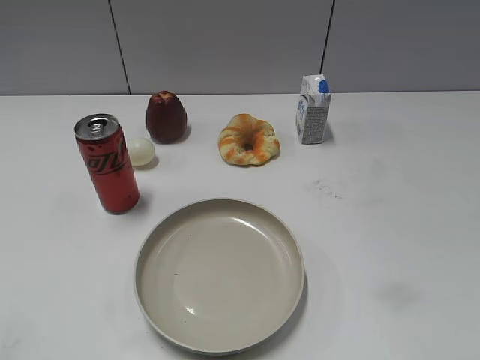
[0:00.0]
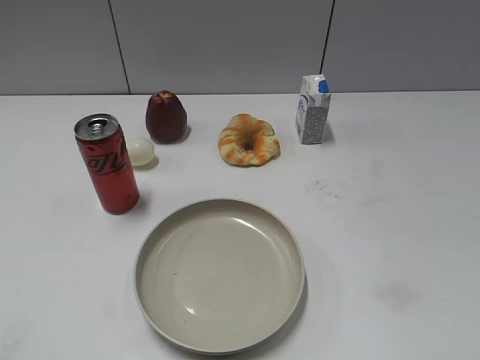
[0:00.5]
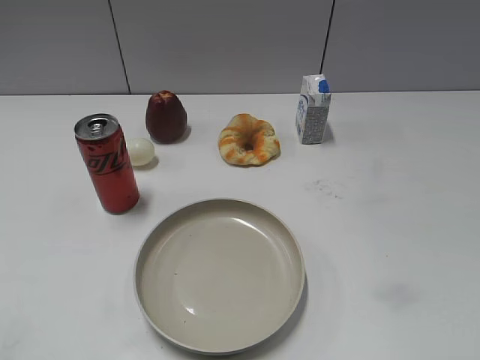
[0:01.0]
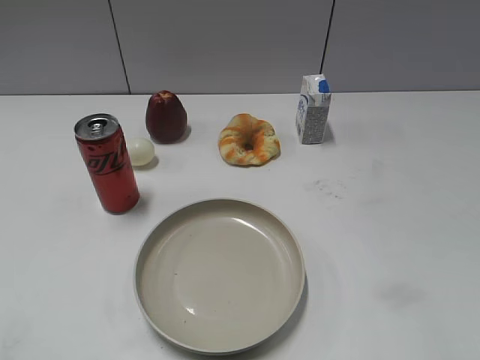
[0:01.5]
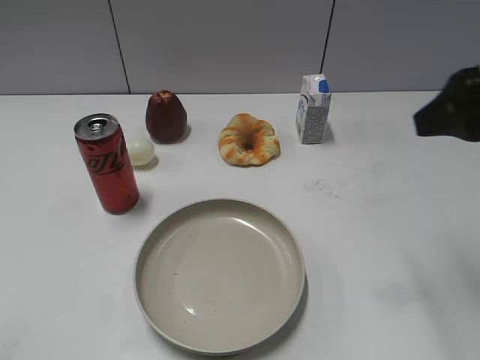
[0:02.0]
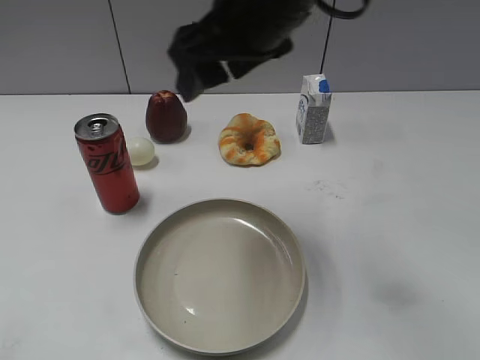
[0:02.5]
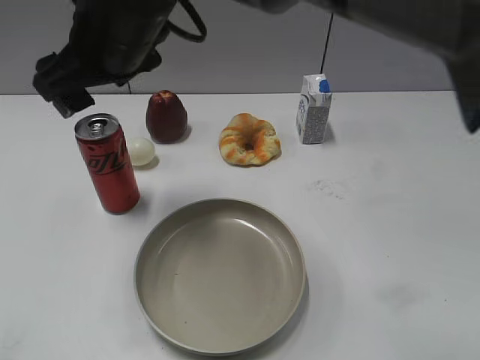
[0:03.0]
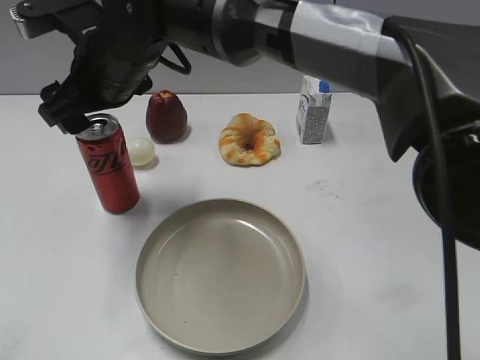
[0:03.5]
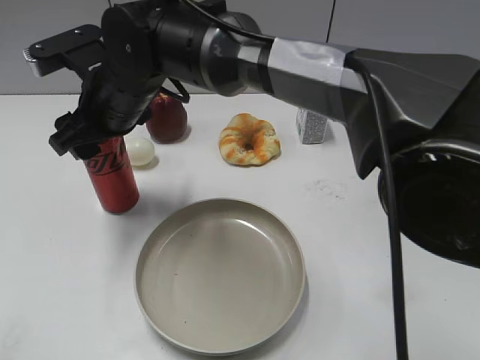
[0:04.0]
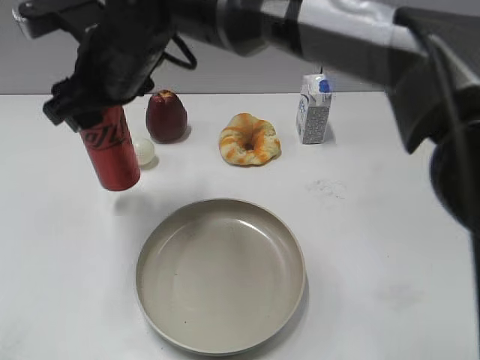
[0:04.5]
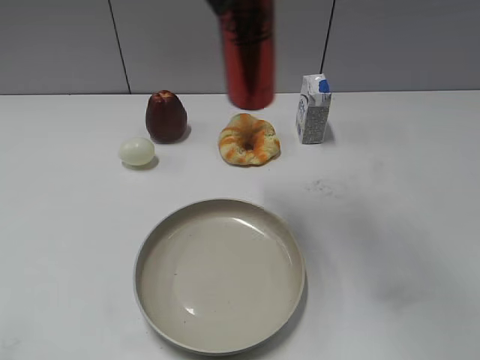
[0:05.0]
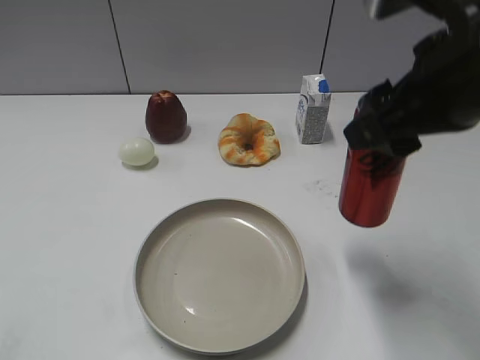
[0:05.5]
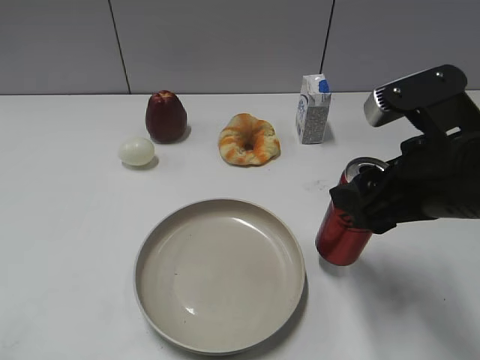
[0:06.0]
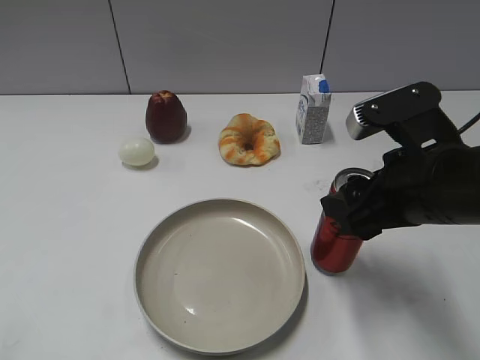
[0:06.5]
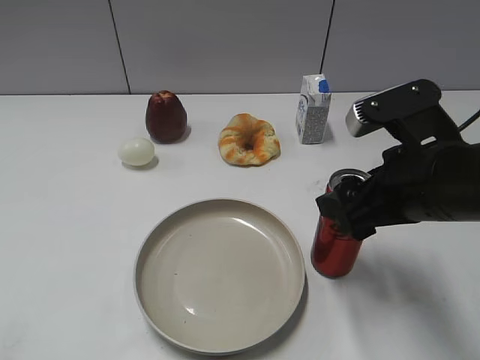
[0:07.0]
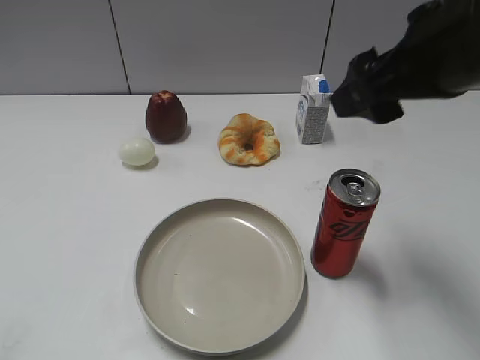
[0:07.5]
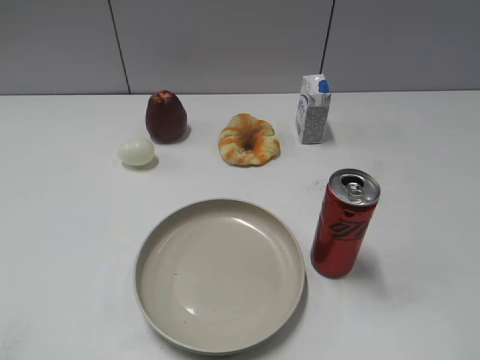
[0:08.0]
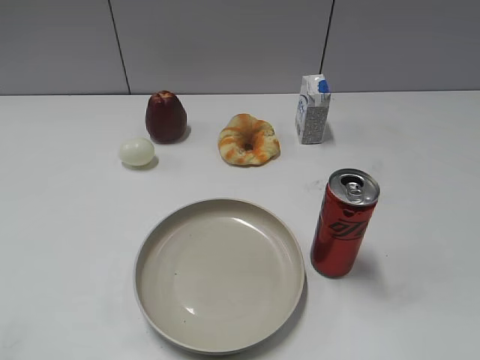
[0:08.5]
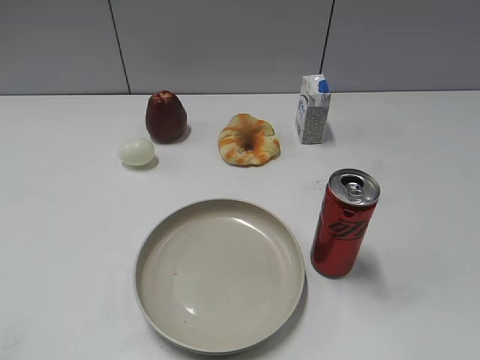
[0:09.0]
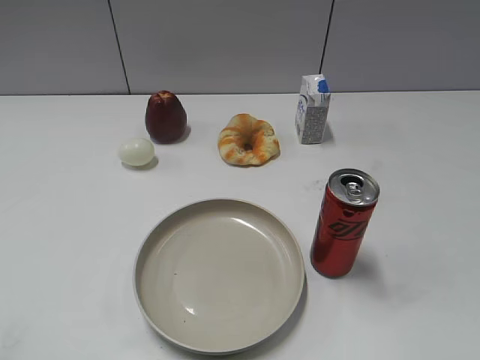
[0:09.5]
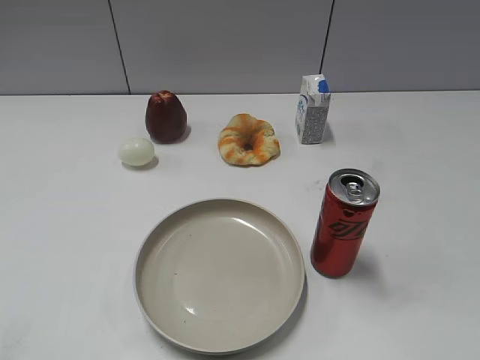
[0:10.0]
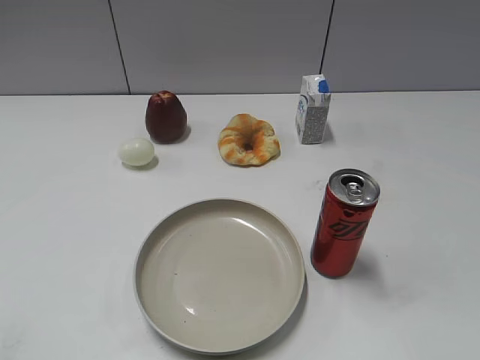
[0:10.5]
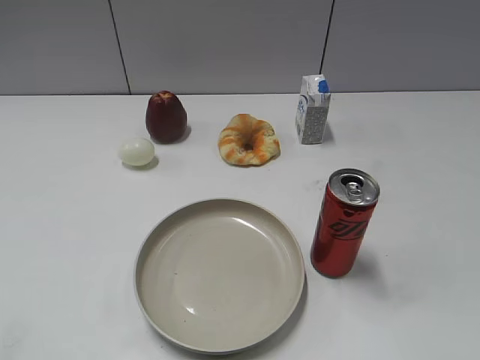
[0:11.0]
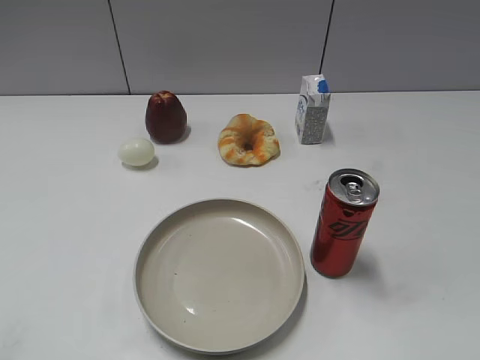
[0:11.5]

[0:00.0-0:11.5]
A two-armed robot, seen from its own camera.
Step, 0:01.0 to 0:04.0: Grasp the cola with right gripper.
Step, 0:04.5 to 0:07.0: Place the cola on the table with right gripper.
0:02.0 to 0:04.0: The right gripper heads to the left, covering roughly 35 cm, and closes up.
0:04.0 to 0:06.0: The right gripper is displaced to the right and backward by approximately 35 cm.
0:06.0 to 0:07.5: The right gripper shifts roughly 10 cm upward, and opens.
0:07.5 to 0:09.5: The right gripper moves backward and to the right, about 25 cm.

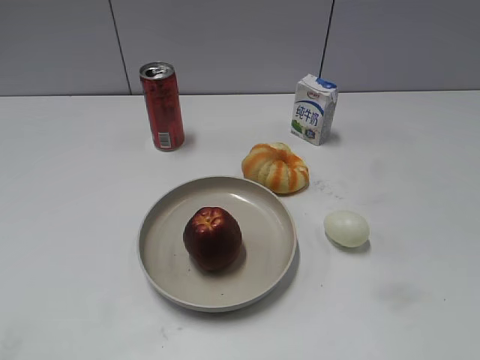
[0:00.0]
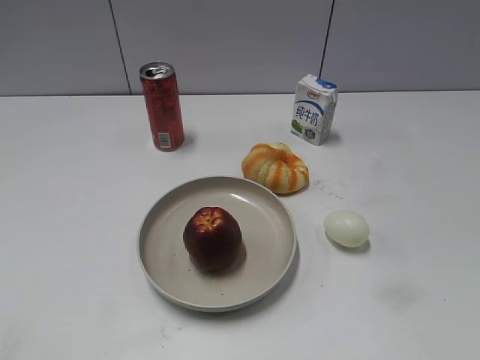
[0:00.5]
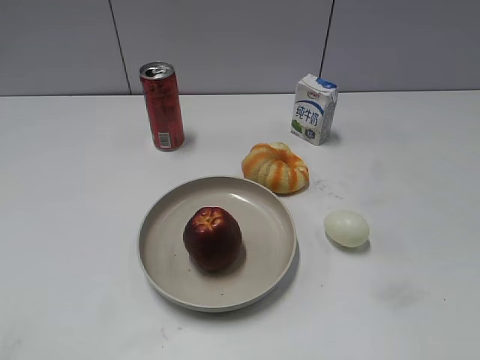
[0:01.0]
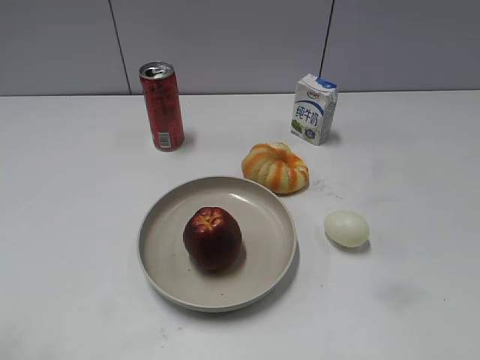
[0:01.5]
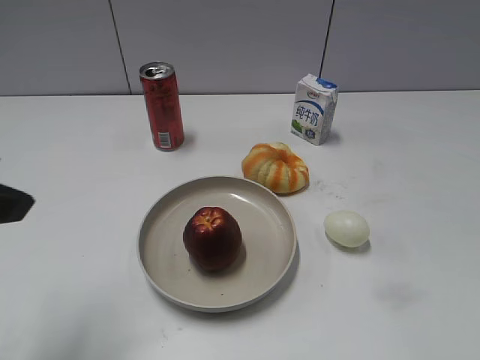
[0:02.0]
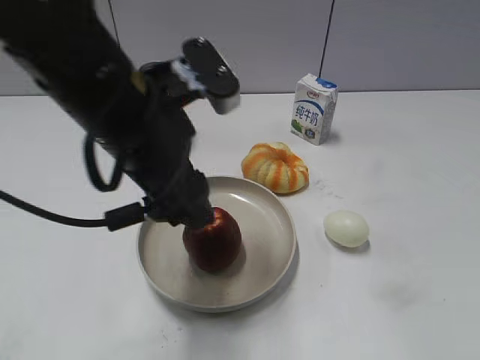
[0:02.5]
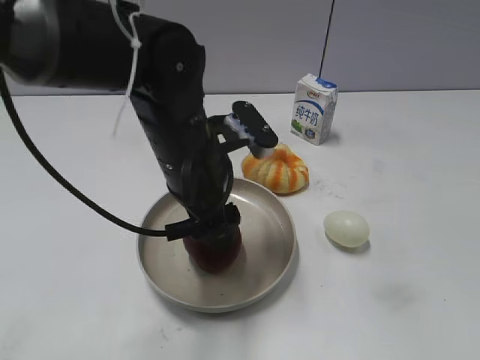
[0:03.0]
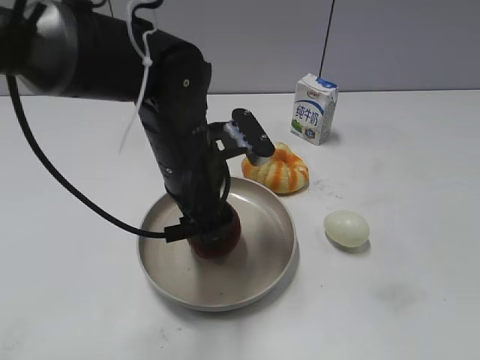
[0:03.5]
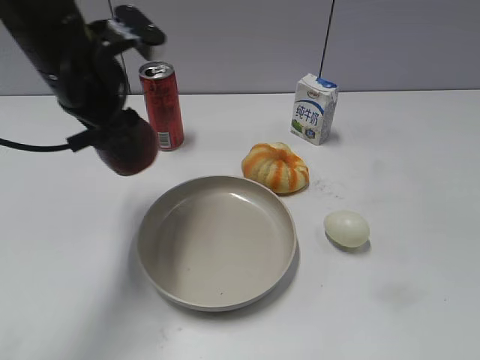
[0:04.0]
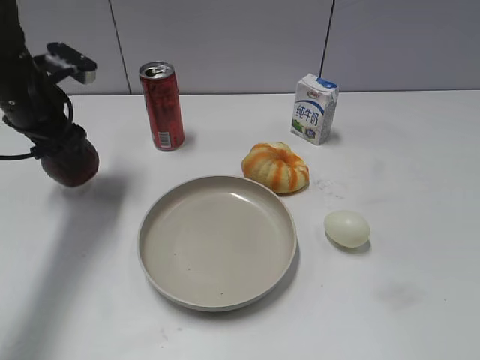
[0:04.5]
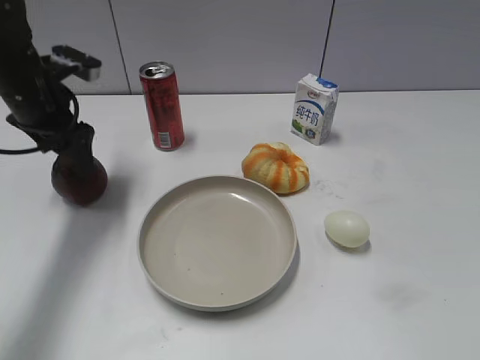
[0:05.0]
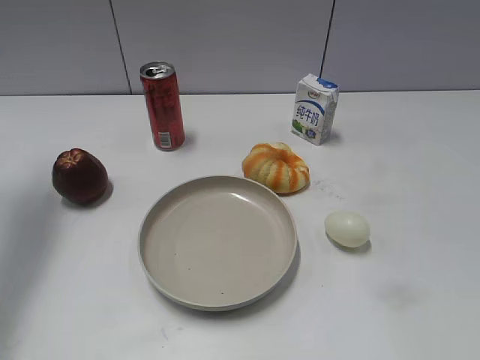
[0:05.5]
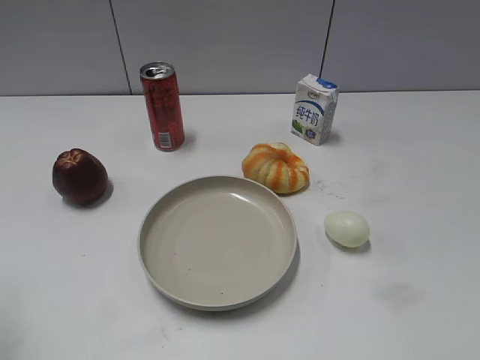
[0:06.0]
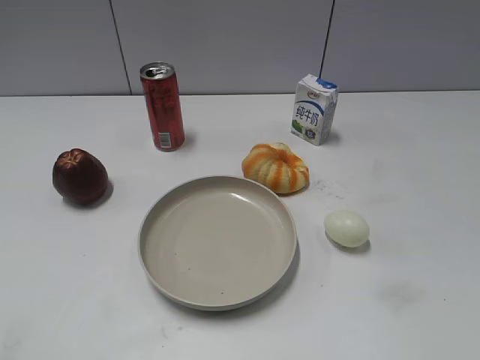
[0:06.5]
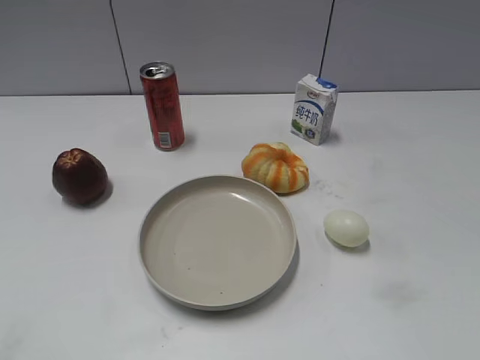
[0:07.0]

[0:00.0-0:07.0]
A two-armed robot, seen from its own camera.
Step, 0:02.0 to 0:03.0: Grasp the apple with left gripper.
Step, 0:03.5 to 0:05.0: Place the apple on the table with left gripper.
0:02.0 to 0:03.5: The left gripper shifts some 25 cm to the right, downward and forward, and opens its fingers.
0:03.5 to 0:05.0: The left gripper goes approximately 20 cm to the left and forward, and opens.
0:05.0 to 0:07.0: The left gripper heads backward, covering about 40 cm, and closes its fingers.

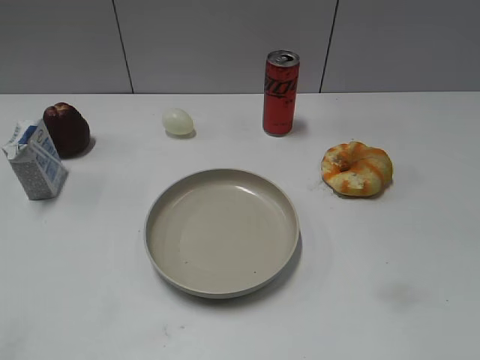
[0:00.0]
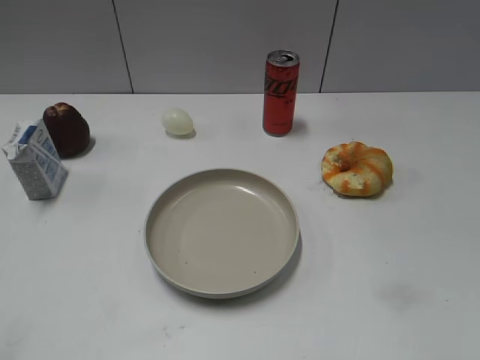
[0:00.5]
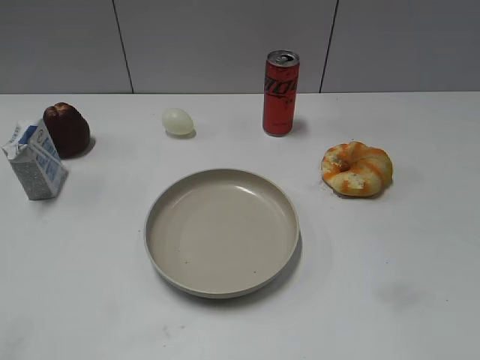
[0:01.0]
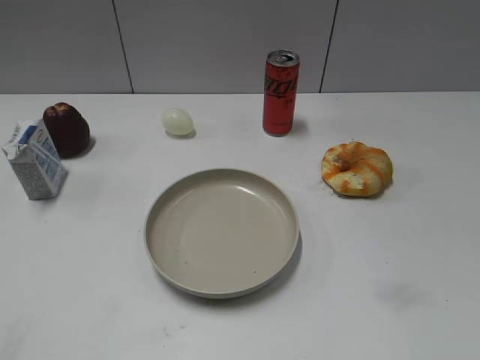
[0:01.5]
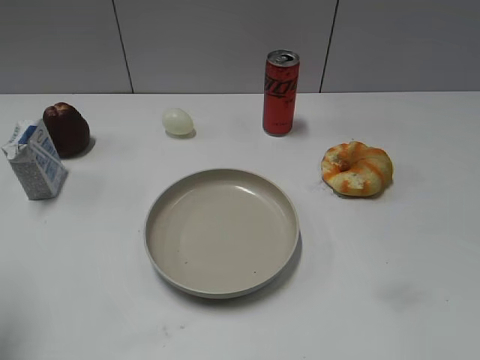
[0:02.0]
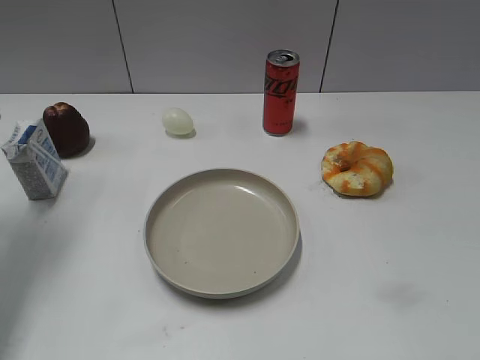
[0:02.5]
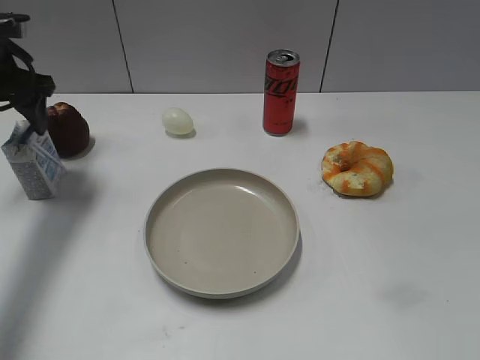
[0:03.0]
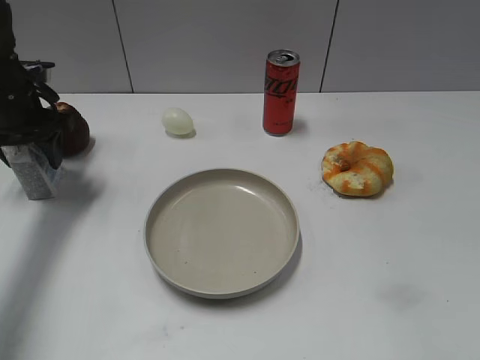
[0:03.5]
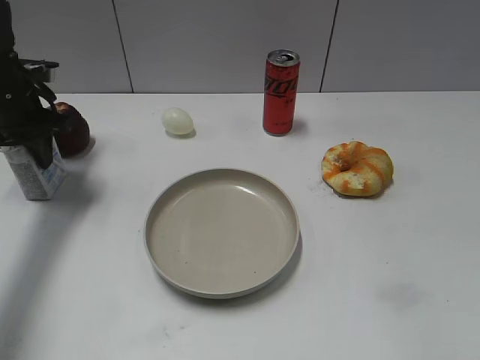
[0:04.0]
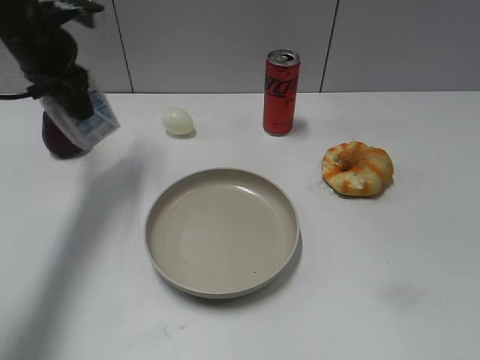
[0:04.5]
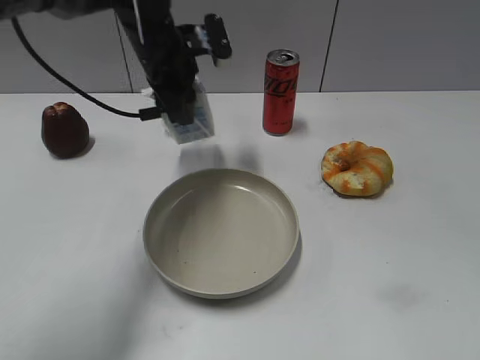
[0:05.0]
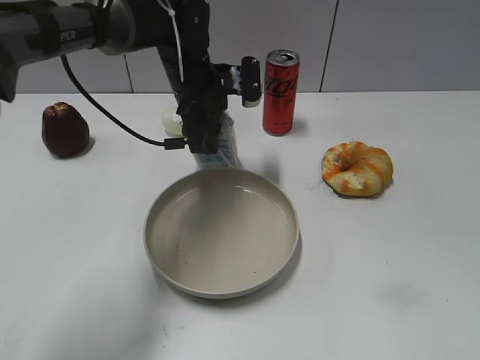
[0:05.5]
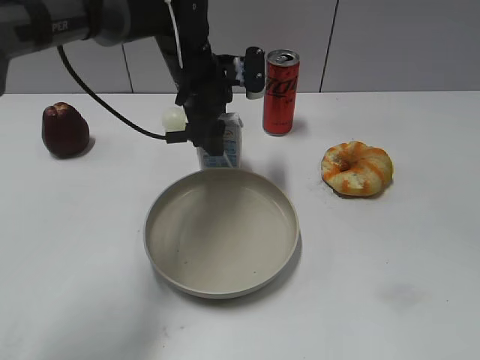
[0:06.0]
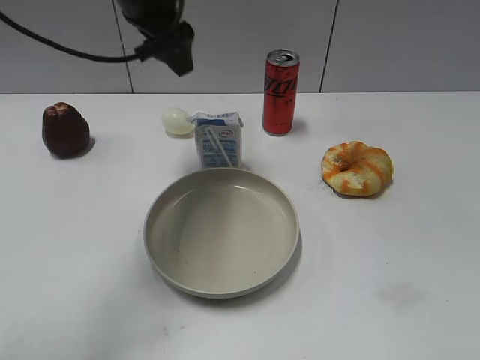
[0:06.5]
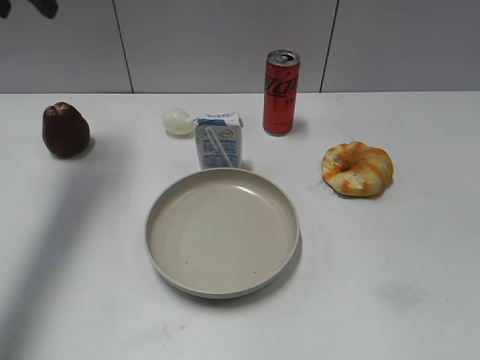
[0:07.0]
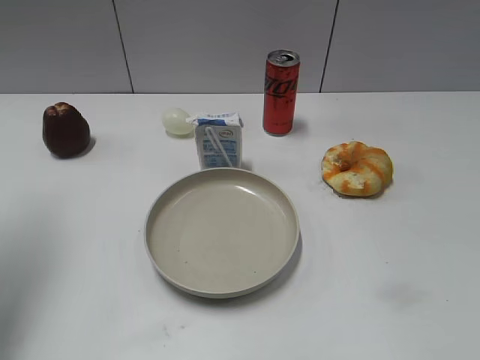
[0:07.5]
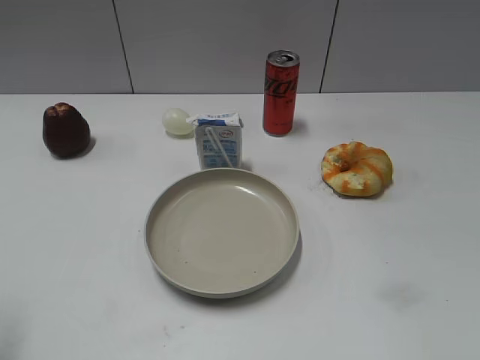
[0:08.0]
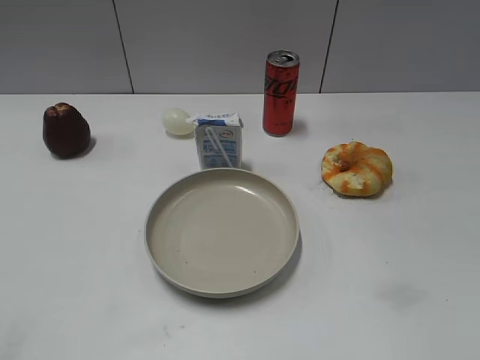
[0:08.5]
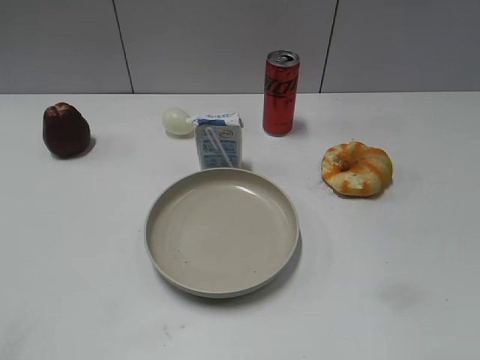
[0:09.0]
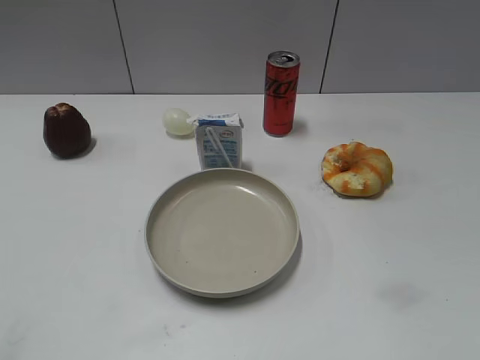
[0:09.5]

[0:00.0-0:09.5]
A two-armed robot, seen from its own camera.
Step, 0:01.5 to 0:03.5: Grasp the milk with left gripper.
Step, 0:04.0 to 0:06.0: Place the milk on the table with left gripper.
0:02.0 to 0:04.0: The left gripper heads forward and downward, covering roughly 30 cm, and closes its fingers.
0:04.0 to 0:05.5: The left gripper shifts roughly 25 cm to the right.
0:05.5 to 0:07.5: The left gripper moves to the left, upward and backward, approximately 35 cm, and opens.
0:07.5 to 0:09.5: The left gripper goes about 30 cm backward.
